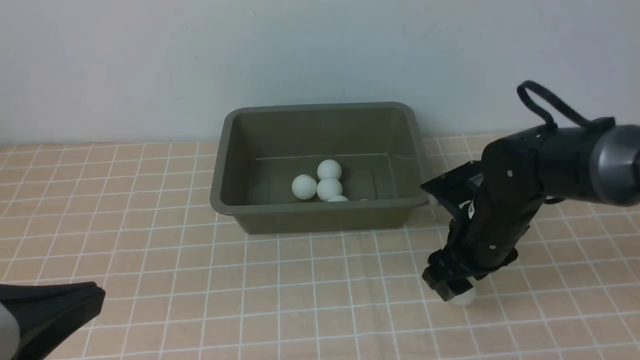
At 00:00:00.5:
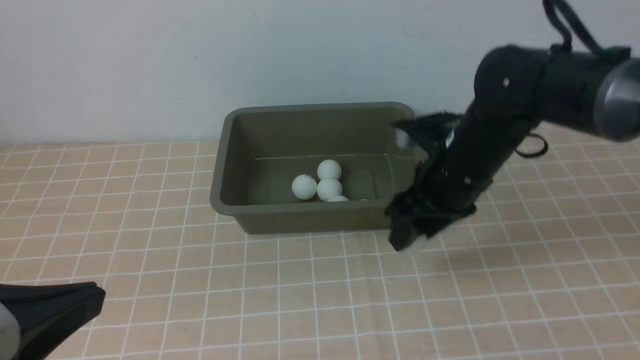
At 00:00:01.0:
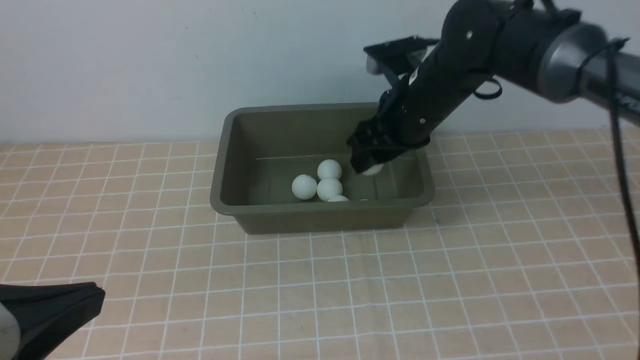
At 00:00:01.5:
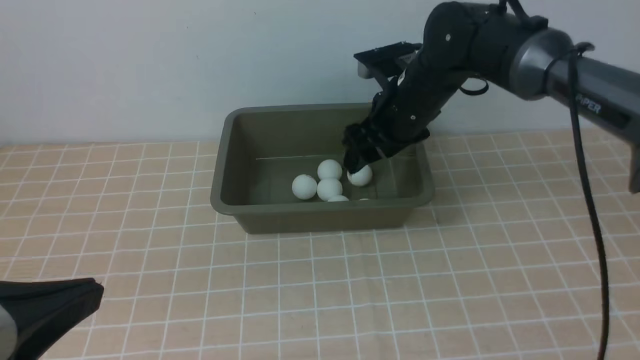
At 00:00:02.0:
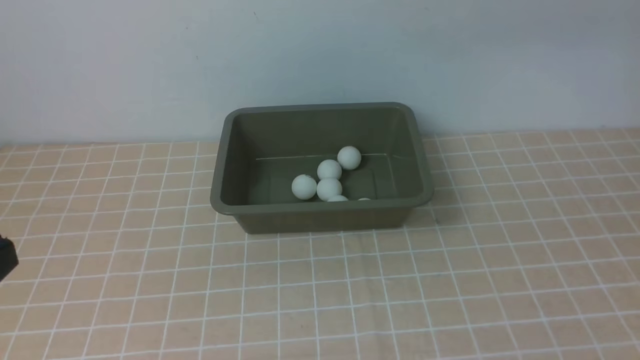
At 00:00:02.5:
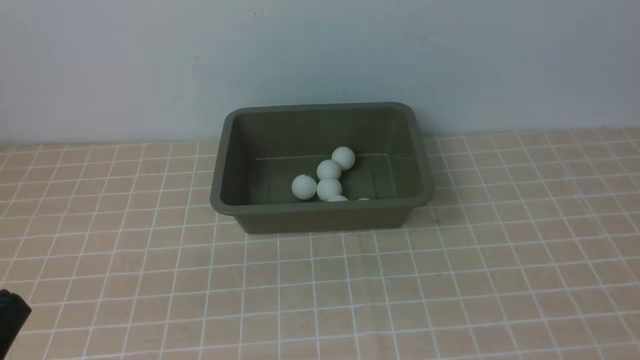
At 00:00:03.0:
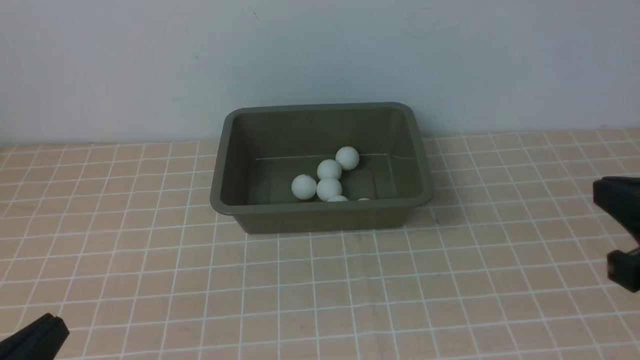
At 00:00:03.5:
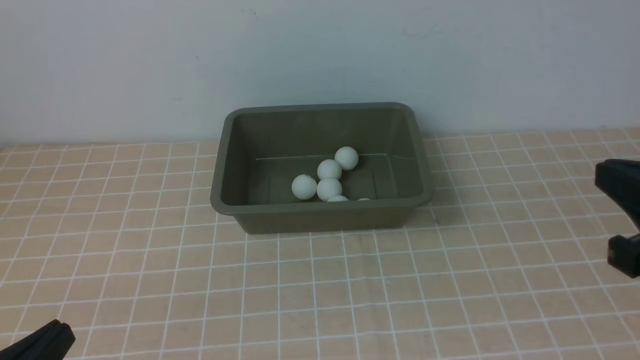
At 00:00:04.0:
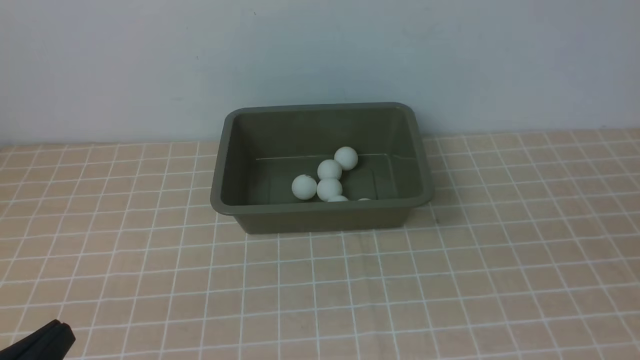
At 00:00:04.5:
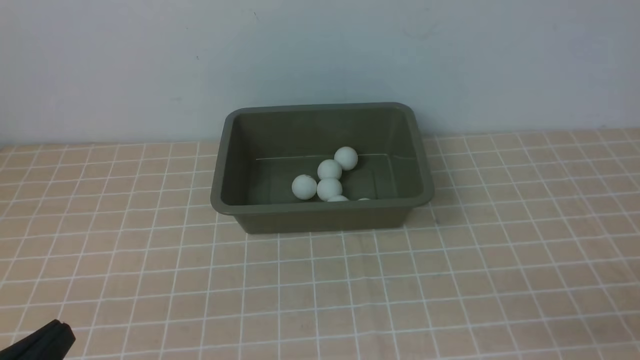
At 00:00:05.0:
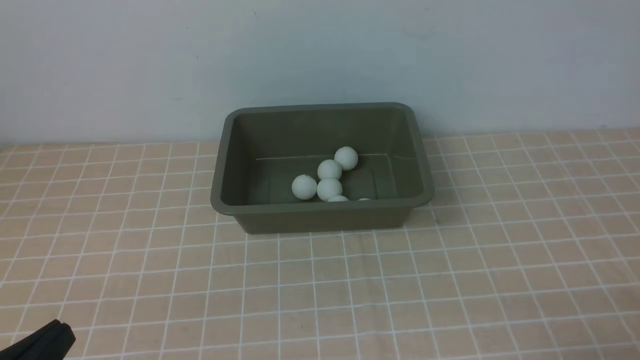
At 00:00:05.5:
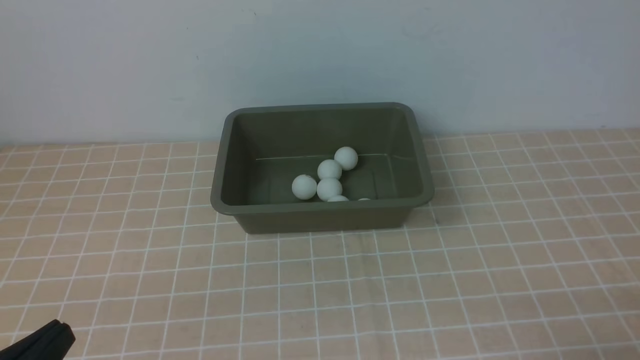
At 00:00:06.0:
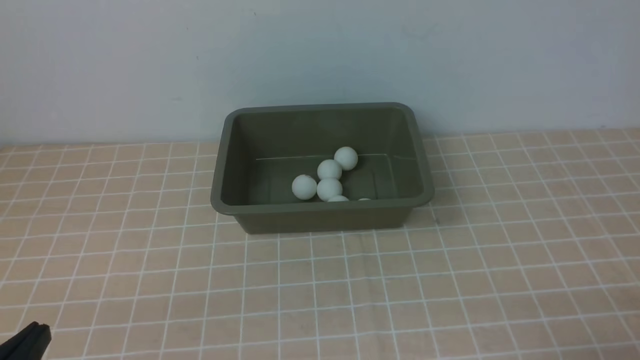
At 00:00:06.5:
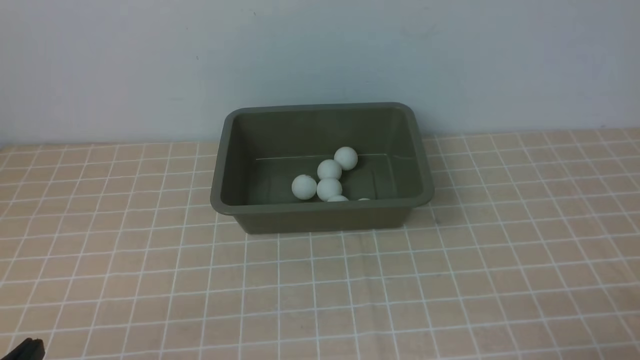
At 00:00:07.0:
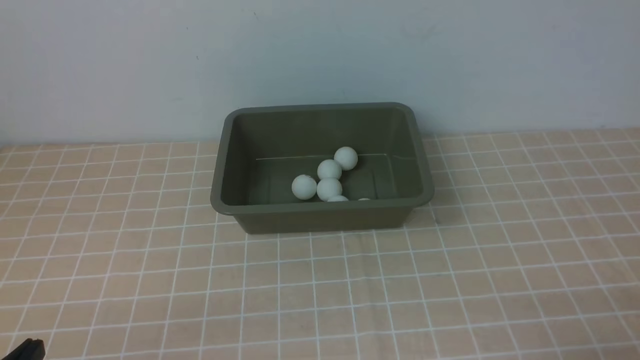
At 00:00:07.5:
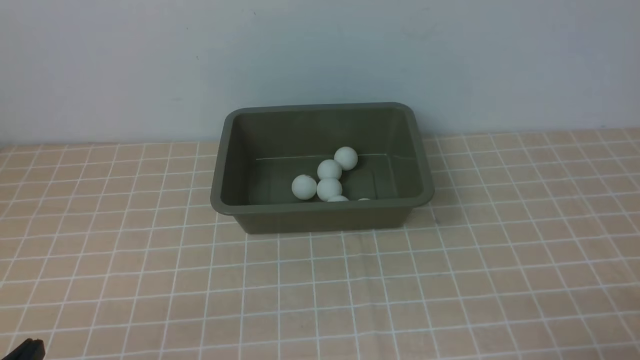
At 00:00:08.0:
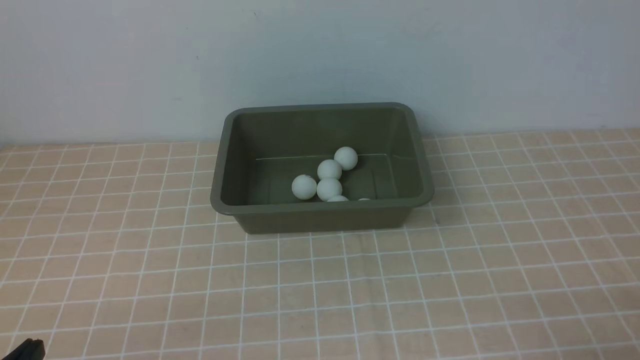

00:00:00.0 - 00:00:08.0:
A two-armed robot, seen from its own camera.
Step, 00:00:01.0 - 00:00:01.5: use the right arm to put the table tennis ball into the box.
00:00:00.0 - 00:00:02.0: The right gripper travels upward by approximately 25 cm, and closes.
00:00:02.0 - 00:00:04.0: The left gripper moves downward, roughly 10 cm.

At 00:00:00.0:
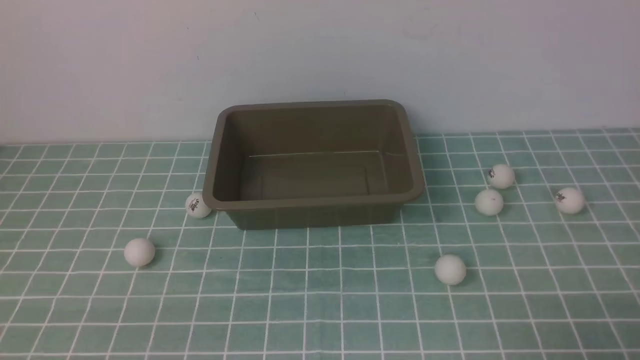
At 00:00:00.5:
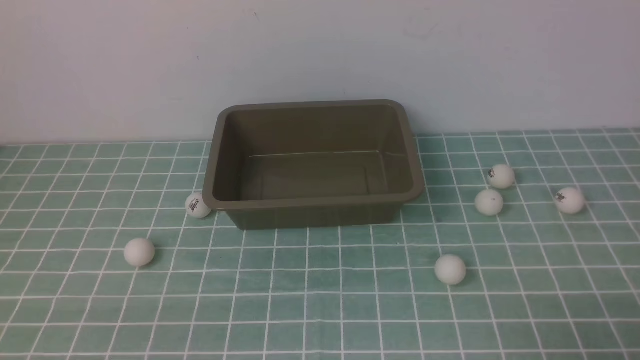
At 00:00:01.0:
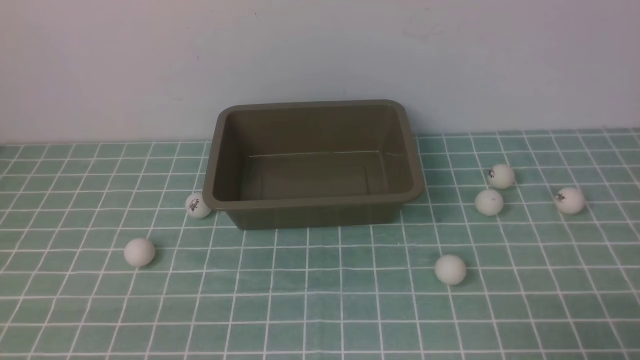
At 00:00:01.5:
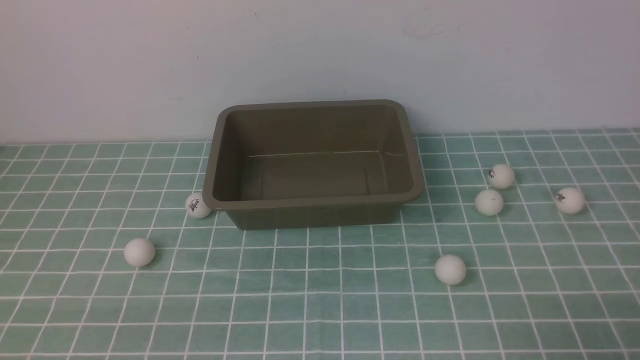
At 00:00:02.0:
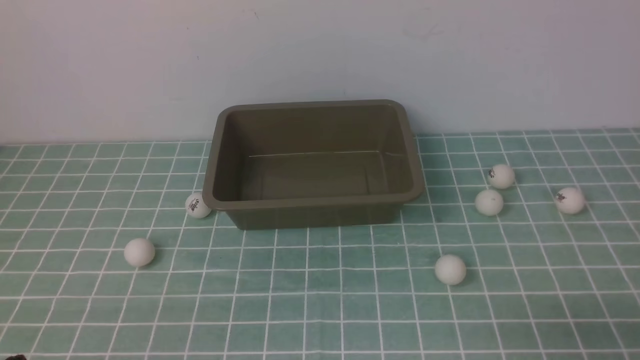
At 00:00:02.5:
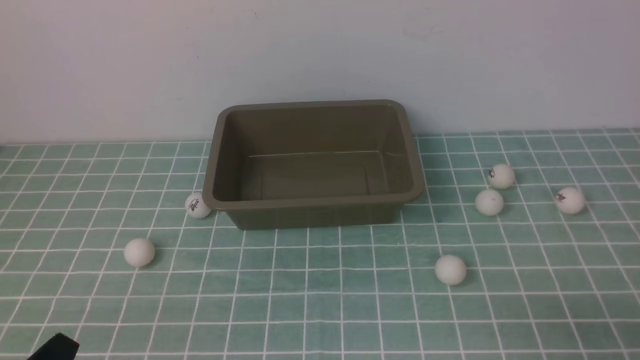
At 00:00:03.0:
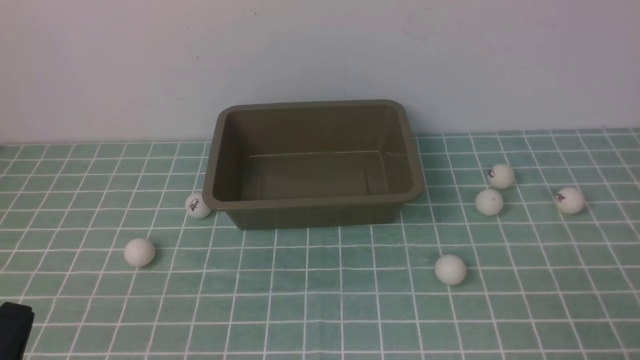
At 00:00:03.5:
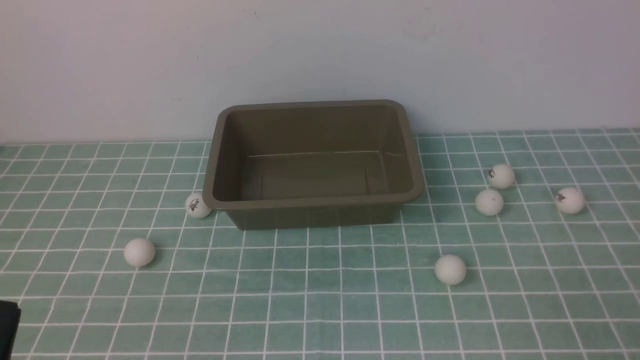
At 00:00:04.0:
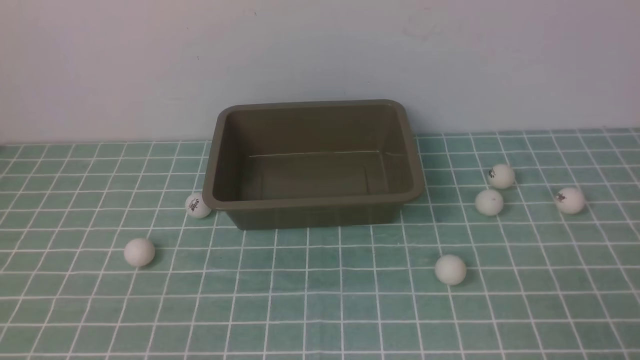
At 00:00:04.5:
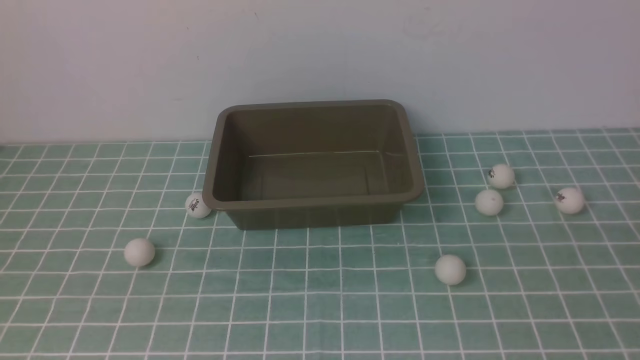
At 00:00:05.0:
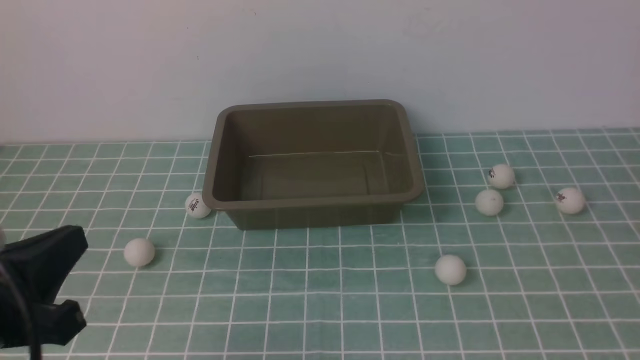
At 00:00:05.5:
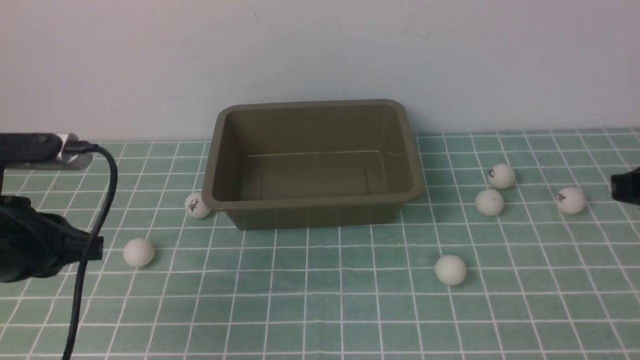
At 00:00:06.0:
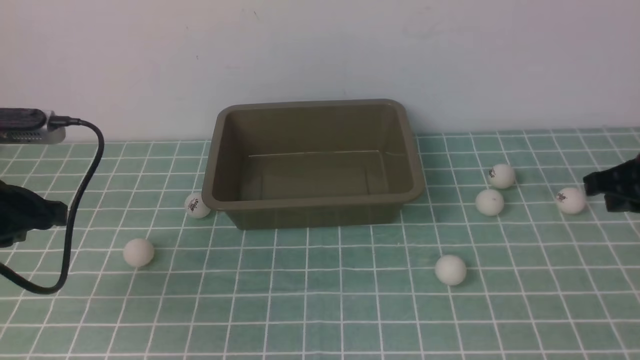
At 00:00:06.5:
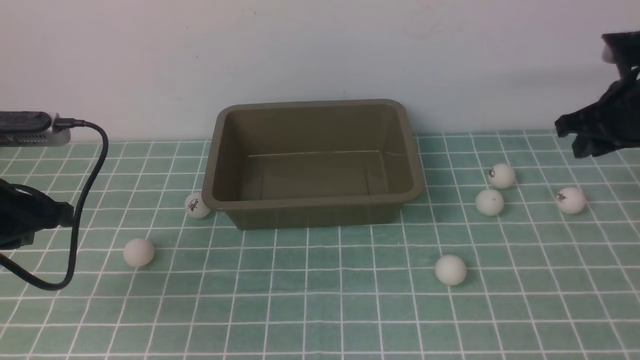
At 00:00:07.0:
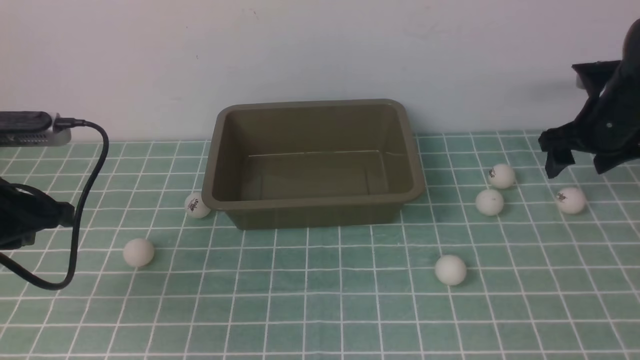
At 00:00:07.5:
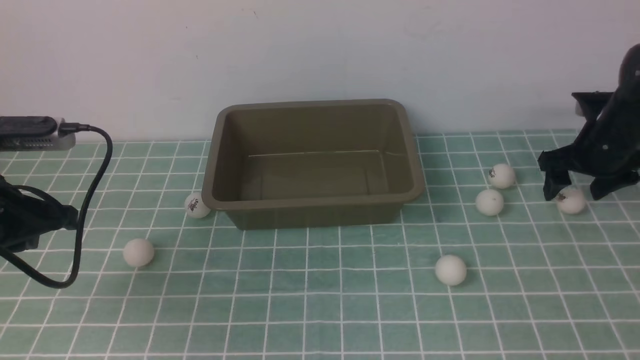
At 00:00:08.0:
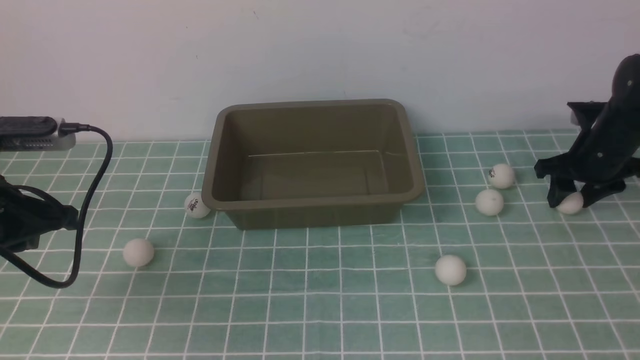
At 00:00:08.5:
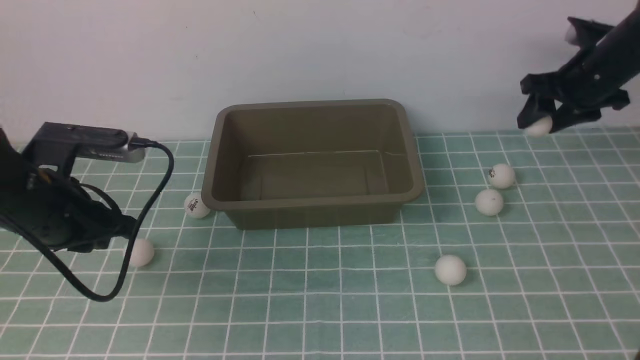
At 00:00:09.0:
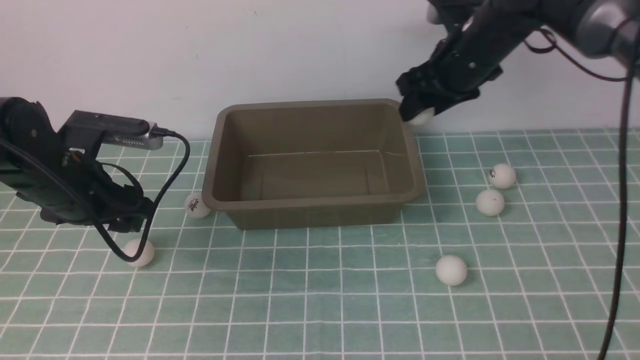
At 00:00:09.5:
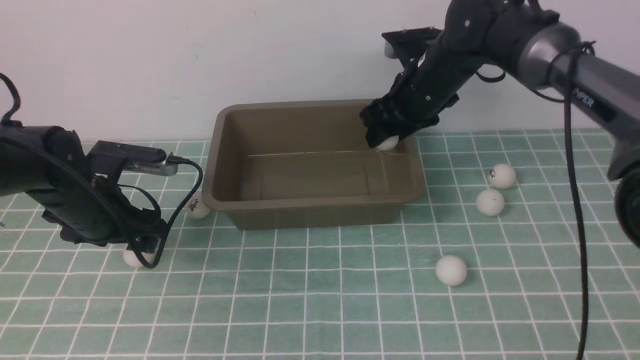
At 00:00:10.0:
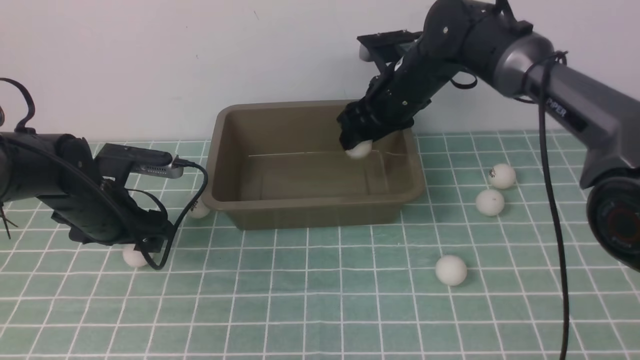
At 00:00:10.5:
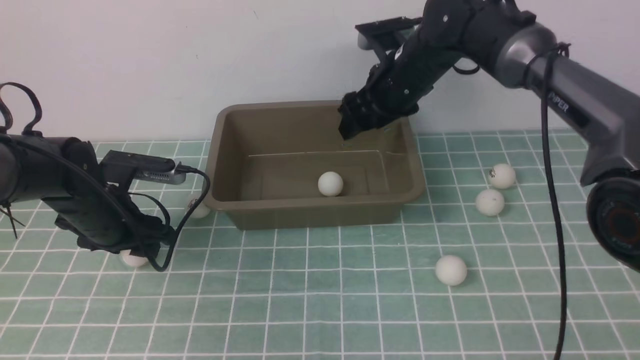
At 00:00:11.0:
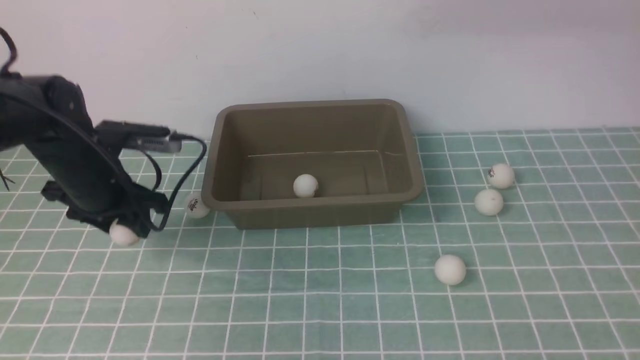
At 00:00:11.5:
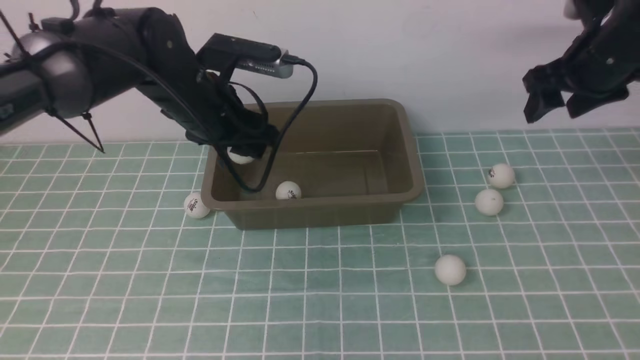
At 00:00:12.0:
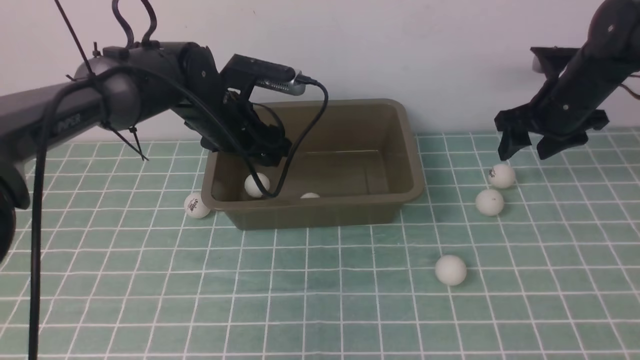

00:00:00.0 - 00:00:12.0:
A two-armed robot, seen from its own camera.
Step, 00:00:00.0 - 00:00:08.0: use the right arm to clamp the table tennis ball closest to it.
Step, 00:00:08.5 - 00:00:10.0: use the right arm to put the table tennis ball into the box.
Step, 00:00:10.5 - 00:00:11.0: use the left arm to clamp the table tennis ball closest to it.
Step, 00:00:11.5 - 00:00:12.0: use the left arm to put the table tennis ball into the box.
00:00:04.0 - 00:00:06.0: The grippers both shift forward by roughly 20 cm.
00:00:06.0 - 00:00:08.0: The right gripper moves forward and downward, roughly 20 cm, and opens up.
00:00:08.0 - 00:00:10.0: The left gripper is displaced downward and forward by some 15 cm, and opens up. Meanwhile the right gripper goes some 25 cm to the left.
00:00:10.0 - 00:00:12.0: The left gripper is displaced upward and to the right by some 25 cm. The right gripper shifts some 20 cm to the right, and moves approximately 15 cm upward and comes back.
